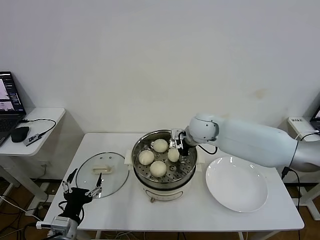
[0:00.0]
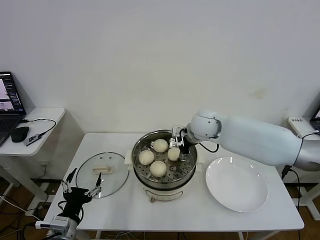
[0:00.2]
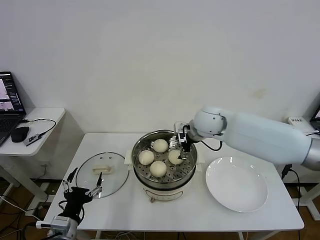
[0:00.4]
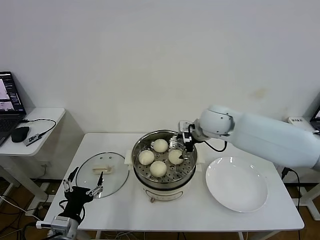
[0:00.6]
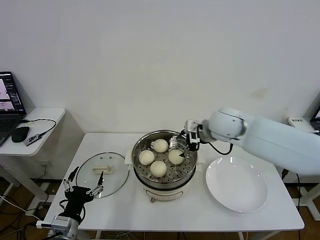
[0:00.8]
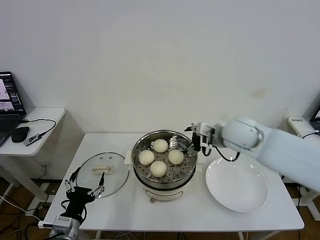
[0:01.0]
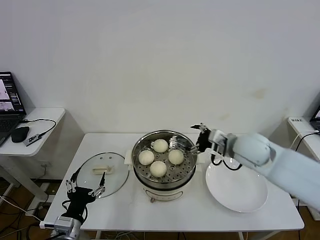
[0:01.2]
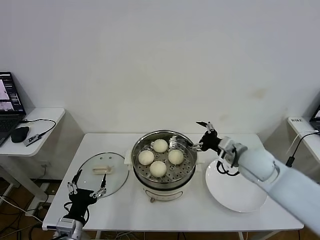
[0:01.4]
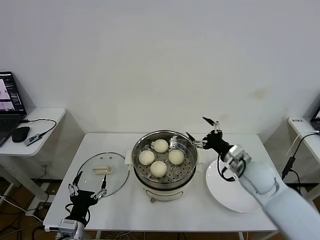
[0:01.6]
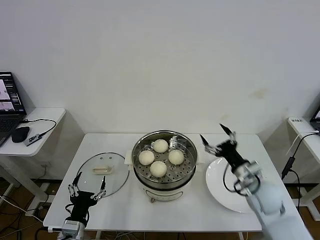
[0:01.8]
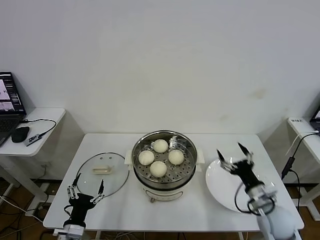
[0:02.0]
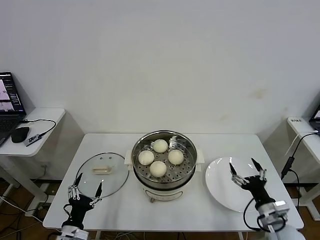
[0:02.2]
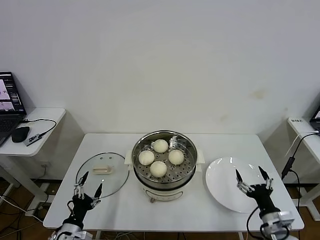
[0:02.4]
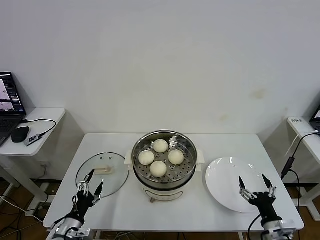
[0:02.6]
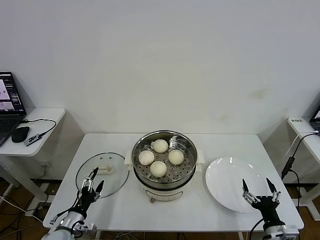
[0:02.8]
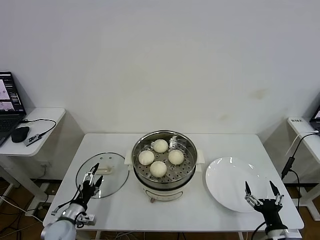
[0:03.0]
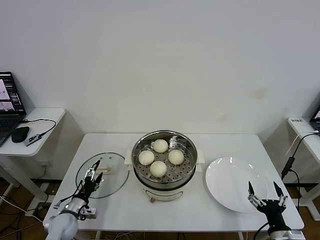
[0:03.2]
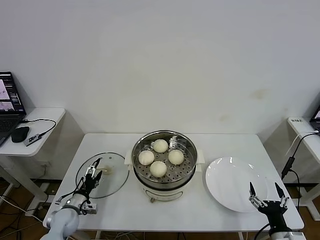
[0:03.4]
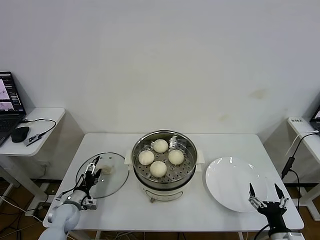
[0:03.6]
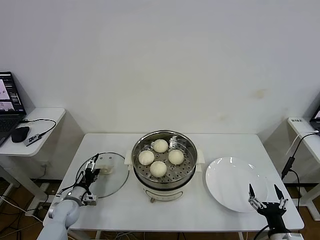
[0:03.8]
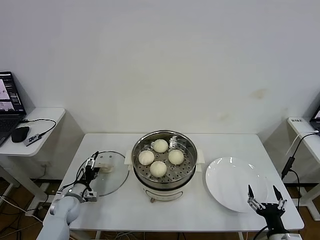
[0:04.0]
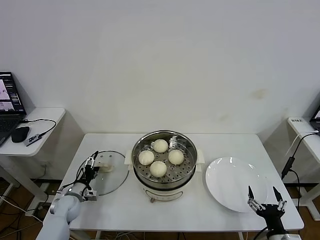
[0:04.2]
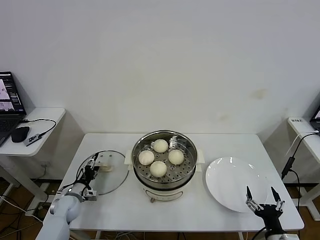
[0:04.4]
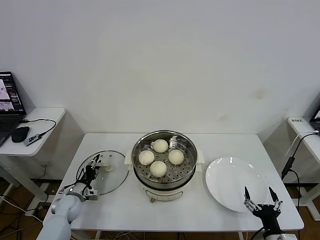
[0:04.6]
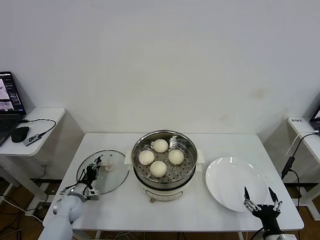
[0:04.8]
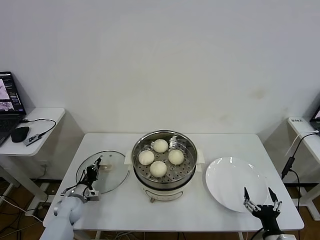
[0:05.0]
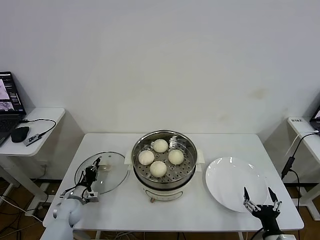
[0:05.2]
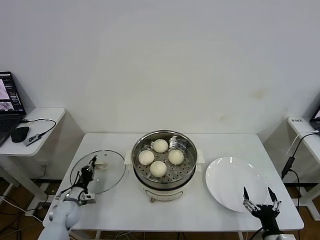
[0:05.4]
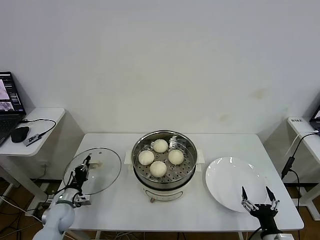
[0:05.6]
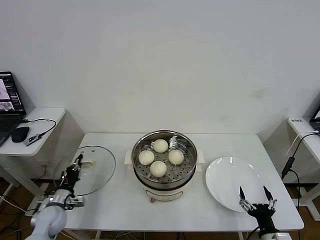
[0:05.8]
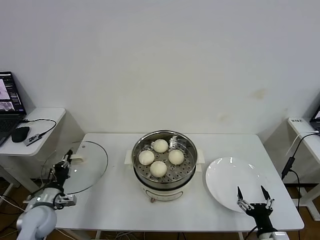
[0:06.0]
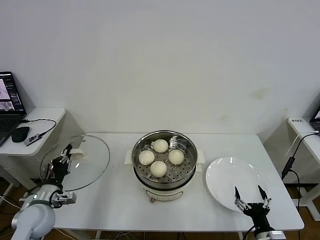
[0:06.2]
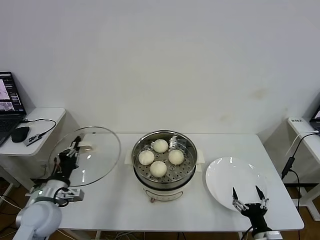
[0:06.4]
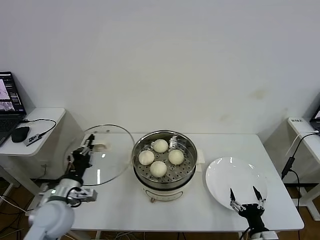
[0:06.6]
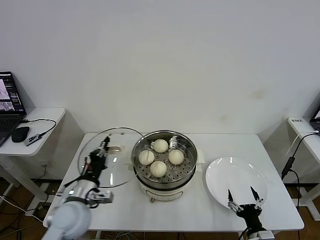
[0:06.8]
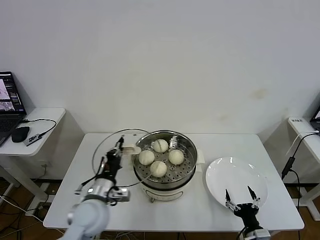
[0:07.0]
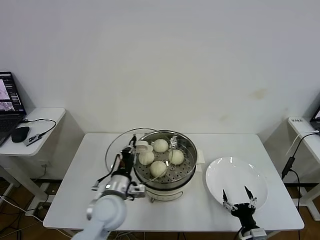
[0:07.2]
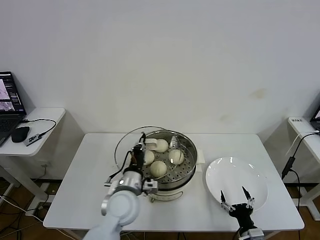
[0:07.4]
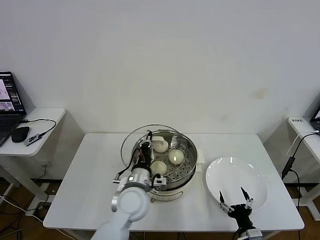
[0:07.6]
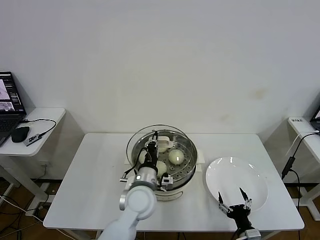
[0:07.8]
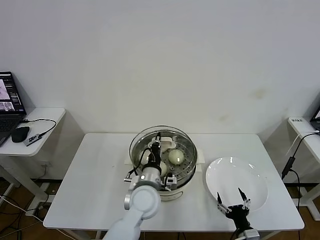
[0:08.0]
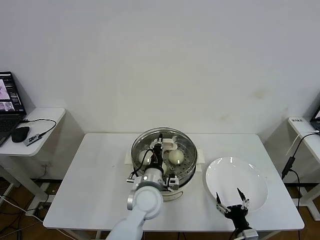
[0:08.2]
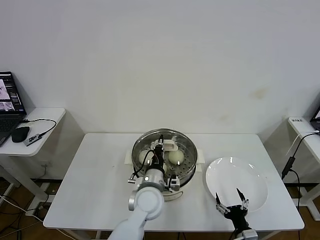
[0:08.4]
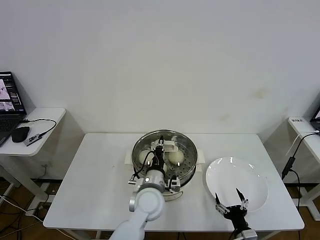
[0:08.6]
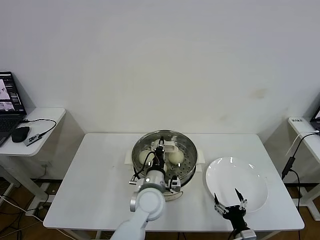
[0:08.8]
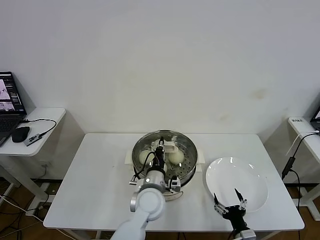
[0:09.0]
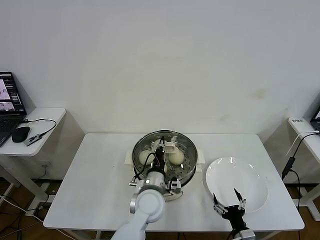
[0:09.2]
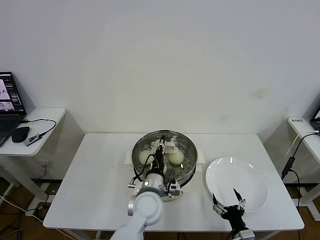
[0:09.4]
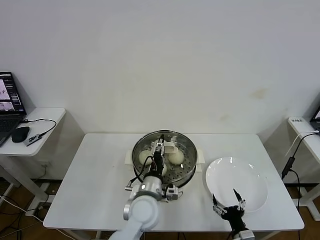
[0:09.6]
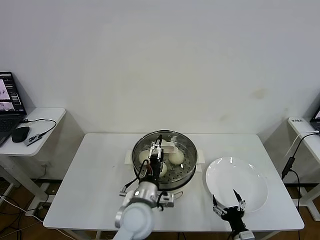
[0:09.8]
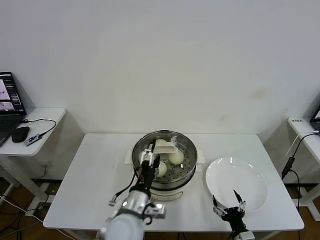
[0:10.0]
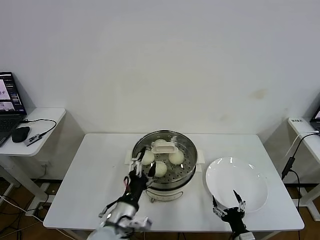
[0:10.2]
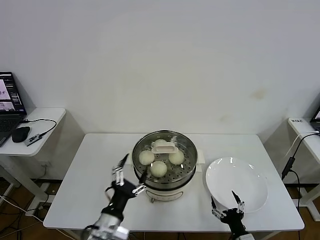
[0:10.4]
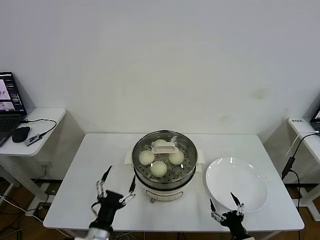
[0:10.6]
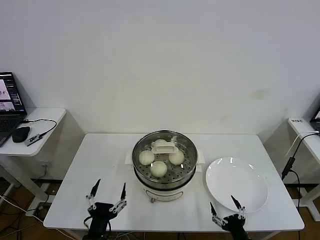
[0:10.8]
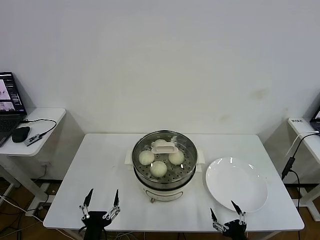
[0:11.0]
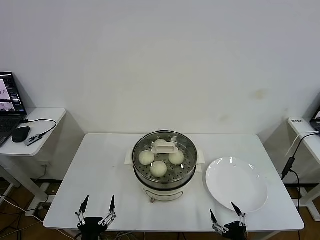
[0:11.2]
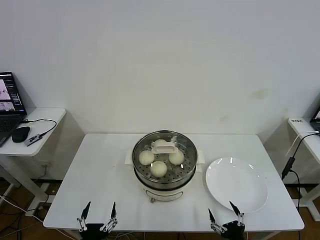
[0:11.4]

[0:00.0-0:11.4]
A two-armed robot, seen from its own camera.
Task of the whole recording: take steamed baozi put them in steamer then cover it.
Step, 0:00.2 to 0:05.0: Grasp the pot lid with left gripper.
Step, 0:05.2 to 0:09.4: Place the pot lid on the steamer with left gripper.
0:00.0 to 0:01.4: The right gripper moves to the right and backward, approximately 20 cm.
0:01.4 to 0:02.8: The left gripper travels downward and to the left by approximately 10 cm. Meanwhile the right gripper heads backward and downward, covering roughly 30 cm.
0:02.8 to 0:04.2: The left gripper shifts about 15 cm forward.
0:04.2 to 0:05.6: The left gripper closes.
0:05.6 to 0:07.2: The left gripper heads to the right and upward, covering about 25 cm, while the right gripper changes place by roughly 5 cm.
0:07.2 to 0:08.6: The left gripper is displaced to the right by some 15 cm.
0:08.6 to 0:10.0: The left gripper shifts some 5 cm backward, and opens its fingers.
0:10.0 to 0:11.4: The right gripper is displaced backward by about 5 cm; the left gripper heads backward, to the left and downward, covering about 25 cm.
